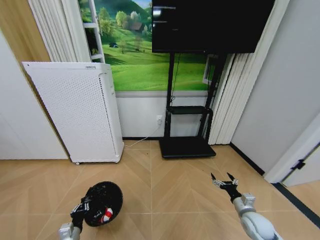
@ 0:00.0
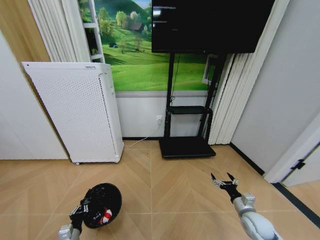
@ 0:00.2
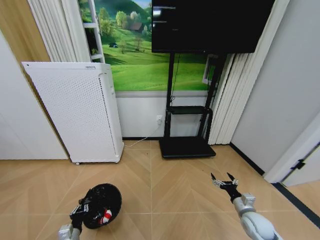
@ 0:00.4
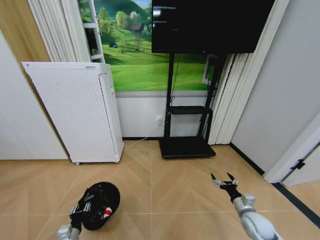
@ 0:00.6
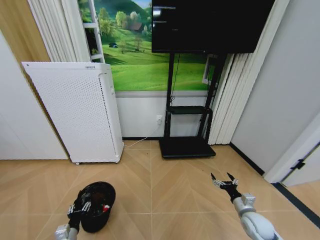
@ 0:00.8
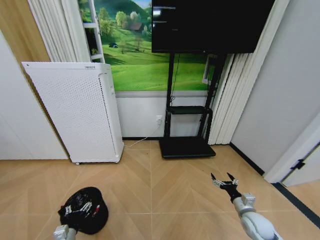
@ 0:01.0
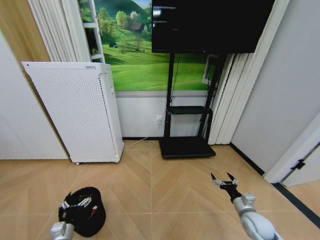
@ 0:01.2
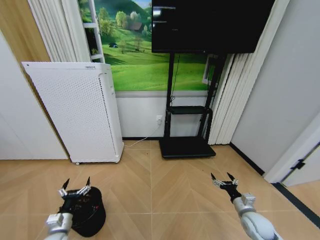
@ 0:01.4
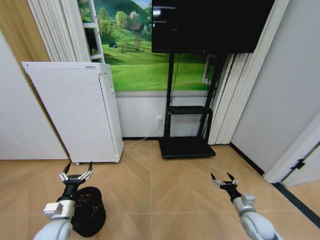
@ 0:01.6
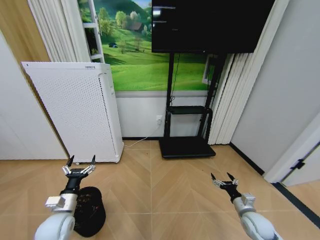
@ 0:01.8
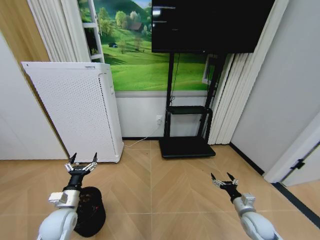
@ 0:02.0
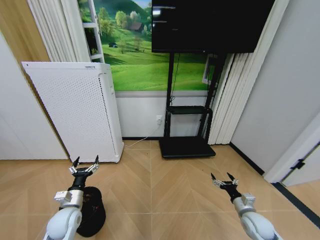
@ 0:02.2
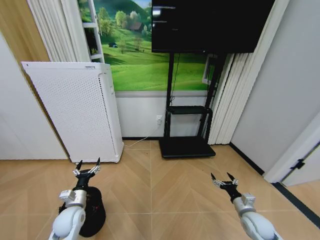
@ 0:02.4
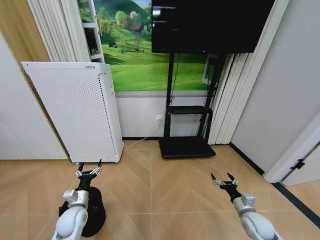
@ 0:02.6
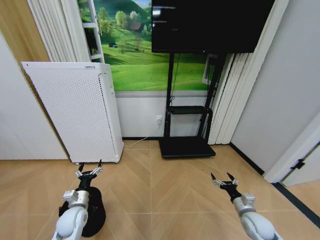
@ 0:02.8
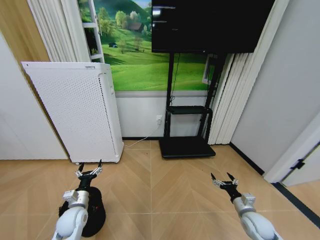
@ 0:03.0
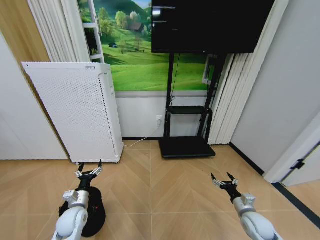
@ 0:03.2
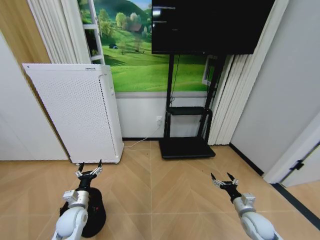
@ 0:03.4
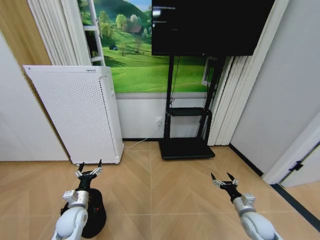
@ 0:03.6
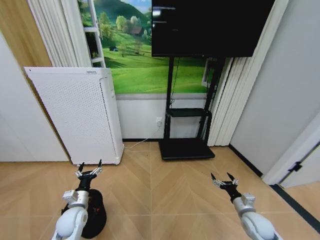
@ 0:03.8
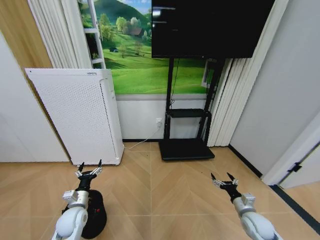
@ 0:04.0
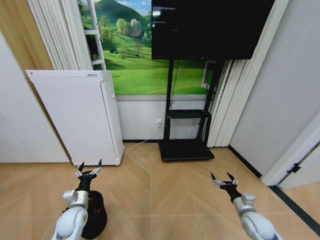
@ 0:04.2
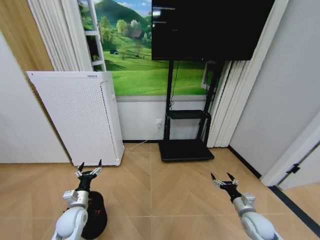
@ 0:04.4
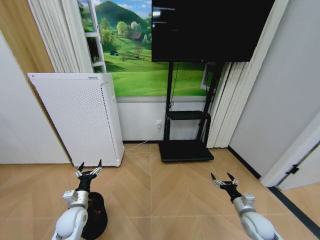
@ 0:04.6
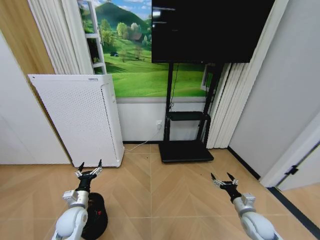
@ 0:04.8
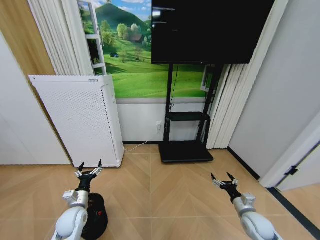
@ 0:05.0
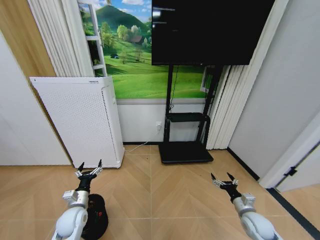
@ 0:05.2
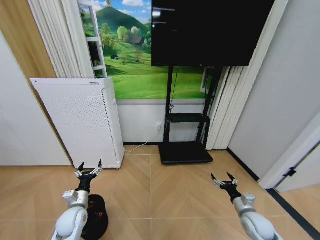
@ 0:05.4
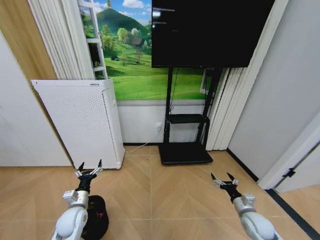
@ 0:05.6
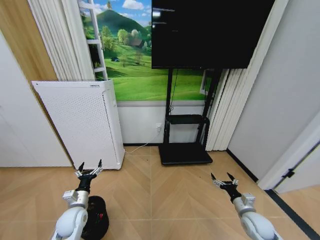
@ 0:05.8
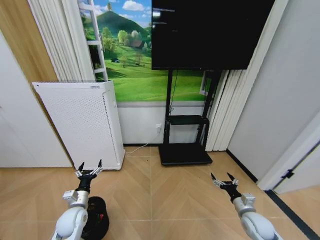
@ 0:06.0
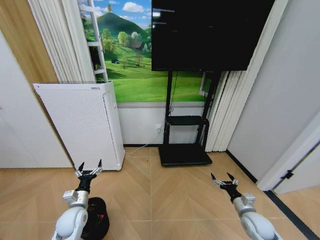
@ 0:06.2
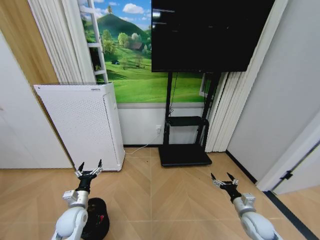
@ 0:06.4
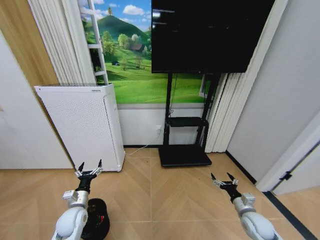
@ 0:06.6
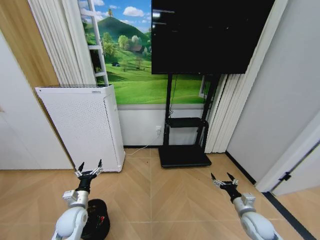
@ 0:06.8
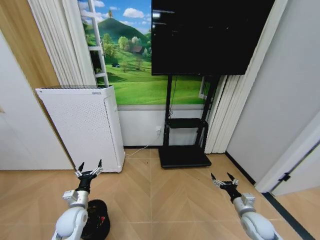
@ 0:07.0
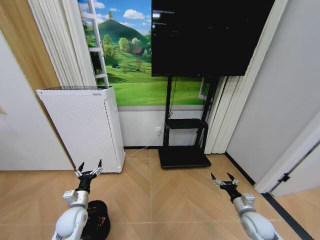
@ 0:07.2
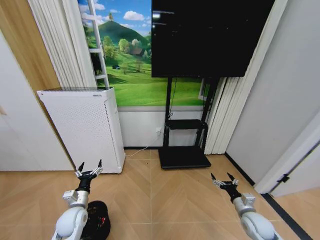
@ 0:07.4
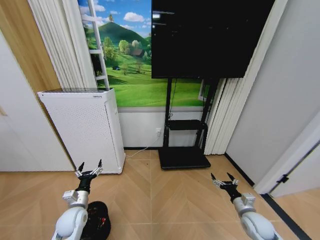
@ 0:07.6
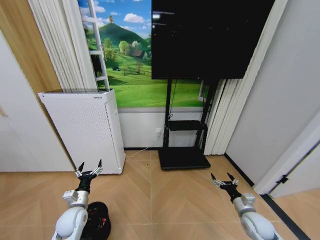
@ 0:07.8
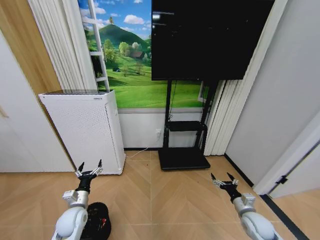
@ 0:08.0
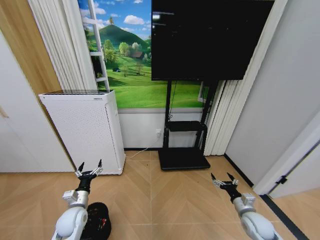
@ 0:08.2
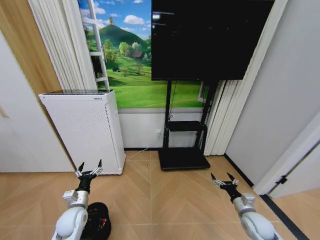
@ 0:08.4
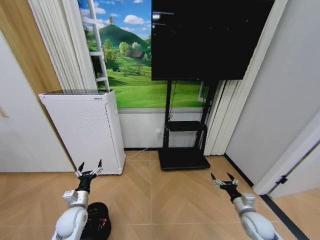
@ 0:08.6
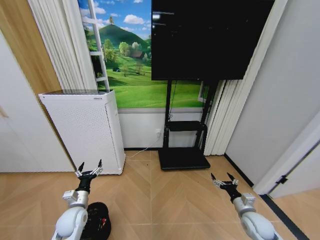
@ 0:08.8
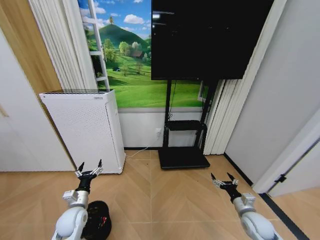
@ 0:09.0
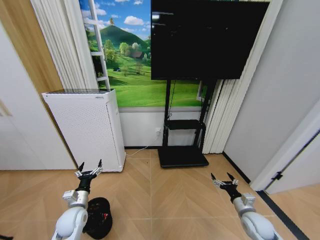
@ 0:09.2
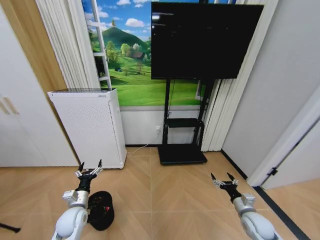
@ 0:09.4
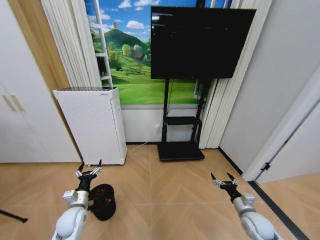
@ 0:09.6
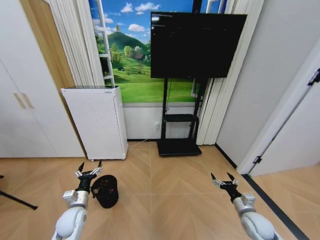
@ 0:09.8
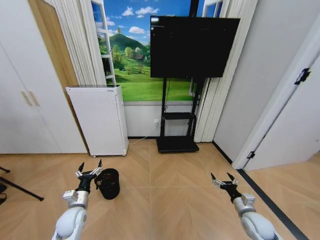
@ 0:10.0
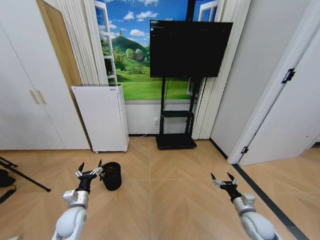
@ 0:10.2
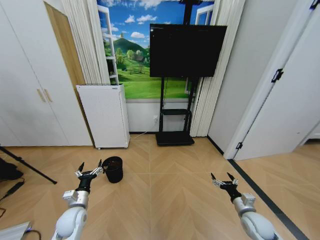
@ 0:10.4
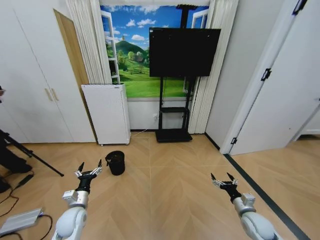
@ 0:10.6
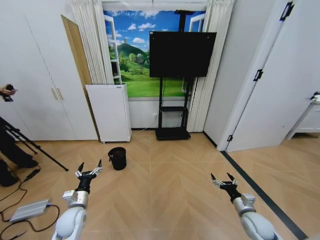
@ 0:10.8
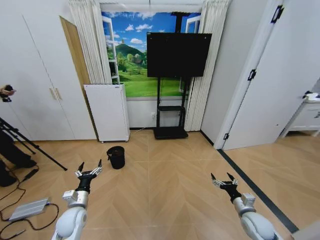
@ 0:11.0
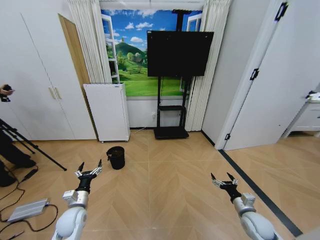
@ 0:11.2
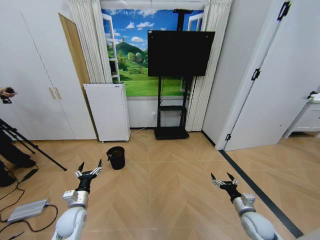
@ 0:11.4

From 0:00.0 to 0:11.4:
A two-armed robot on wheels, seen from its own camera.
Task of the whole recording: Pick up the trash bin and place the garbage on the floor into it.
From 0:00.0 to 0:01.4: The left gripper changes place by about 5 cm, and opens.
From 0:01.4 to 0:02.8: The left gripper is displaced forward by approximately 10 cm.
From 0:02.8 to 0:08.6: Neither gripper changes place.

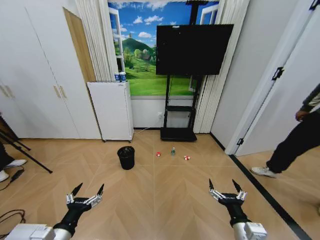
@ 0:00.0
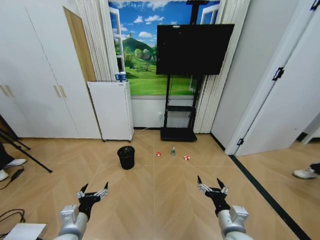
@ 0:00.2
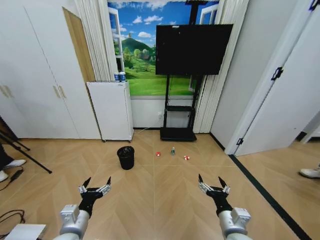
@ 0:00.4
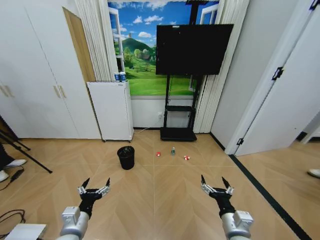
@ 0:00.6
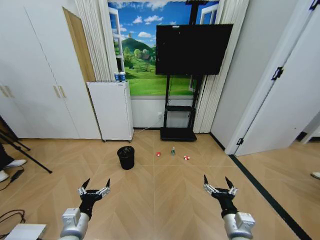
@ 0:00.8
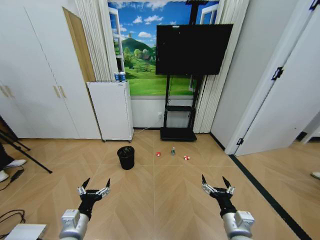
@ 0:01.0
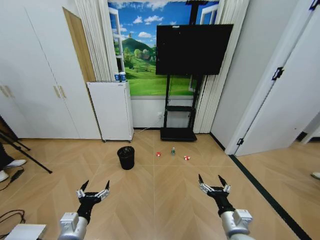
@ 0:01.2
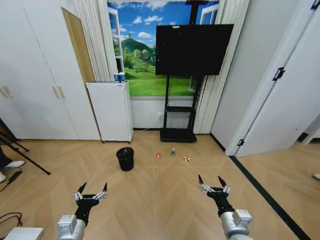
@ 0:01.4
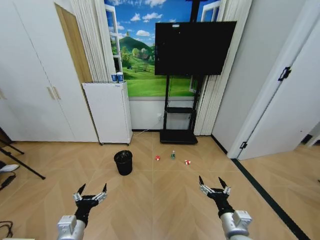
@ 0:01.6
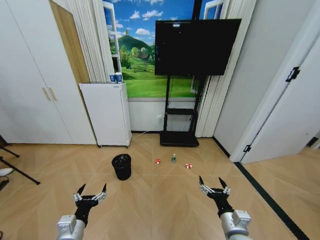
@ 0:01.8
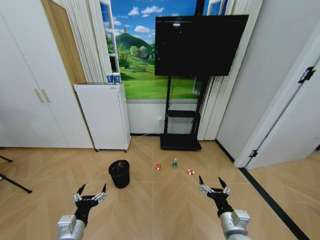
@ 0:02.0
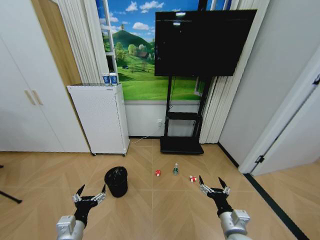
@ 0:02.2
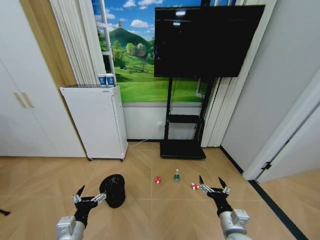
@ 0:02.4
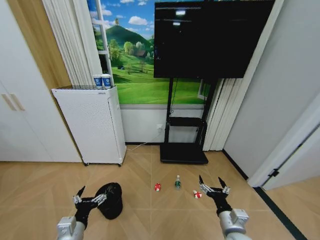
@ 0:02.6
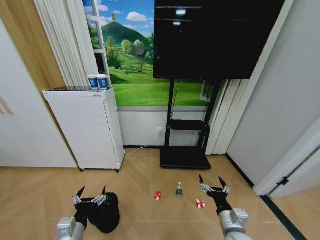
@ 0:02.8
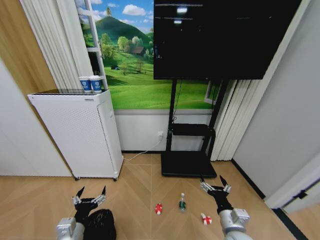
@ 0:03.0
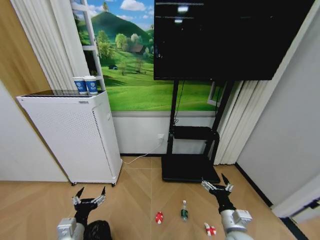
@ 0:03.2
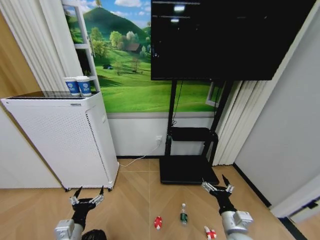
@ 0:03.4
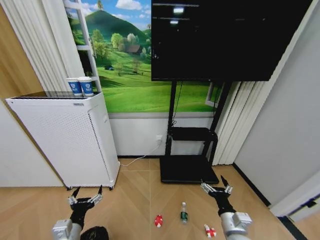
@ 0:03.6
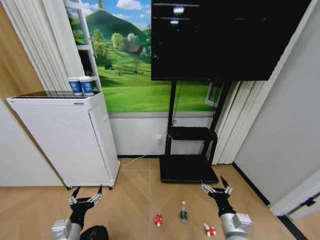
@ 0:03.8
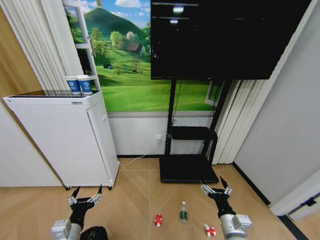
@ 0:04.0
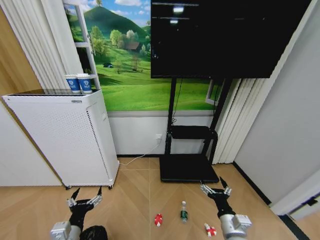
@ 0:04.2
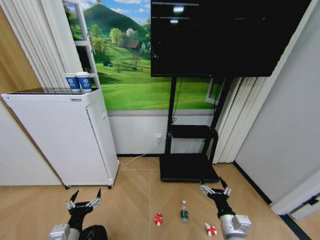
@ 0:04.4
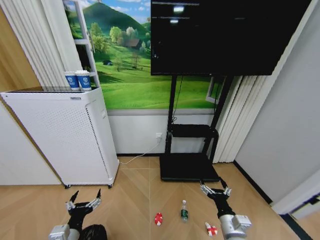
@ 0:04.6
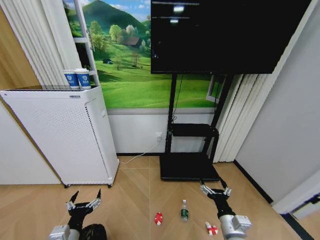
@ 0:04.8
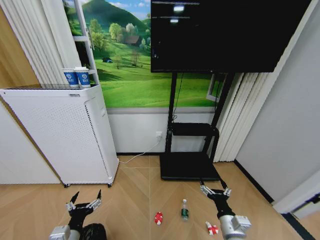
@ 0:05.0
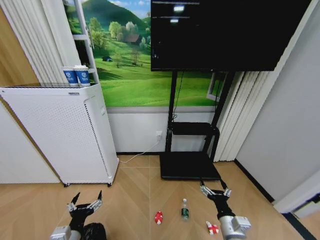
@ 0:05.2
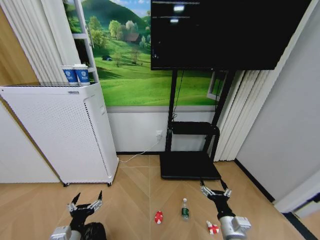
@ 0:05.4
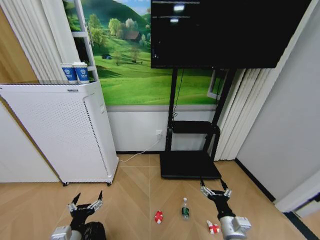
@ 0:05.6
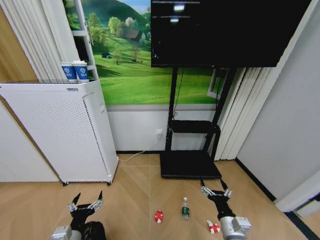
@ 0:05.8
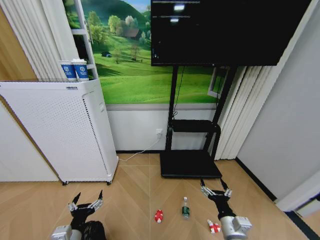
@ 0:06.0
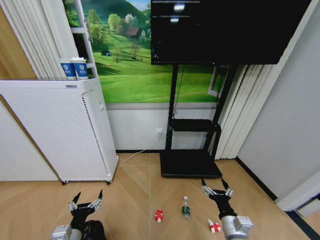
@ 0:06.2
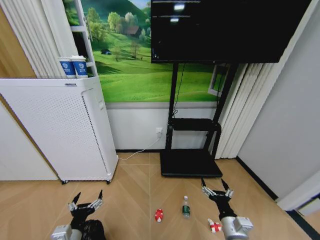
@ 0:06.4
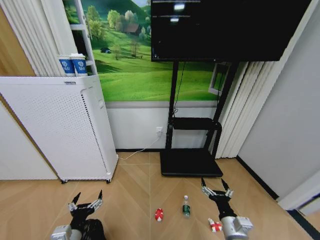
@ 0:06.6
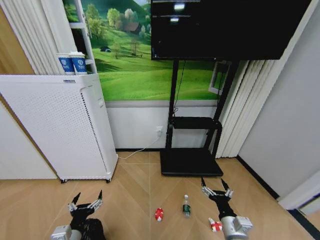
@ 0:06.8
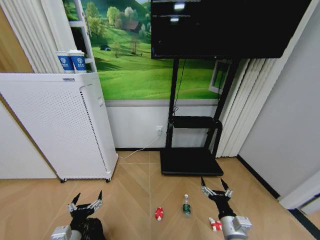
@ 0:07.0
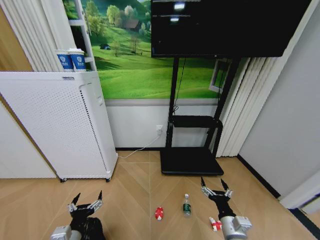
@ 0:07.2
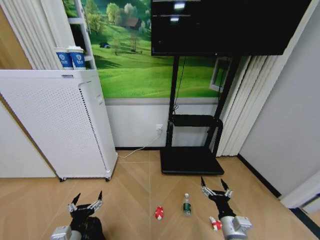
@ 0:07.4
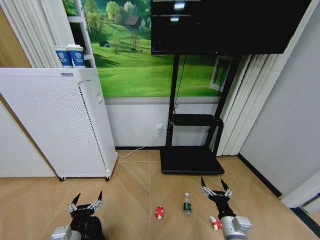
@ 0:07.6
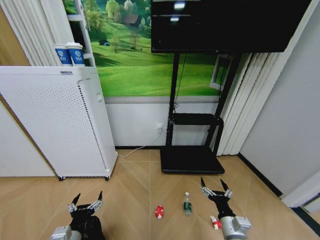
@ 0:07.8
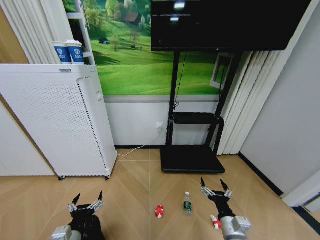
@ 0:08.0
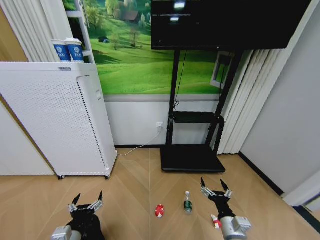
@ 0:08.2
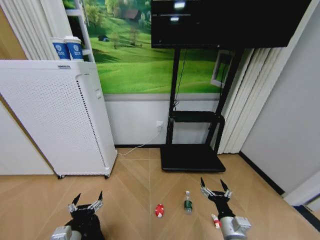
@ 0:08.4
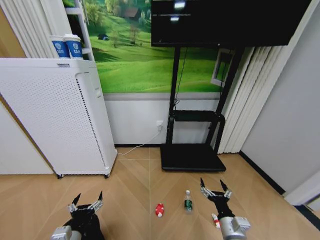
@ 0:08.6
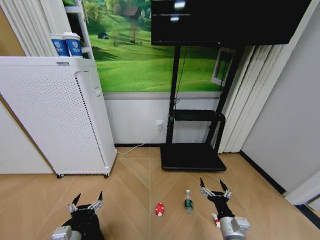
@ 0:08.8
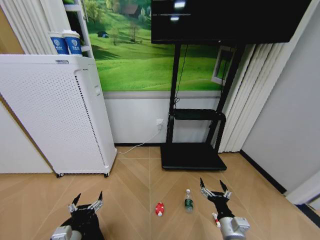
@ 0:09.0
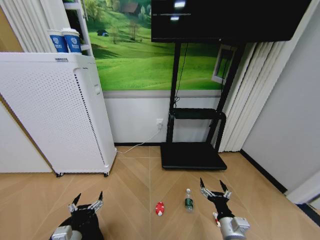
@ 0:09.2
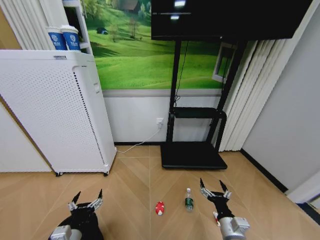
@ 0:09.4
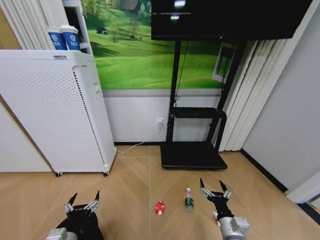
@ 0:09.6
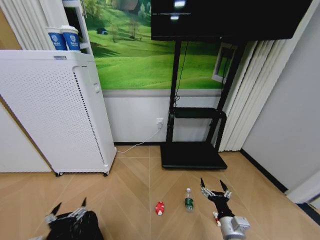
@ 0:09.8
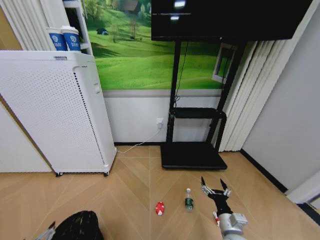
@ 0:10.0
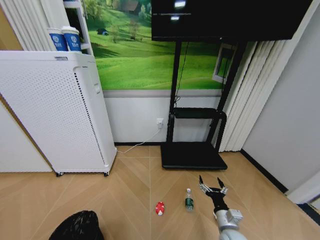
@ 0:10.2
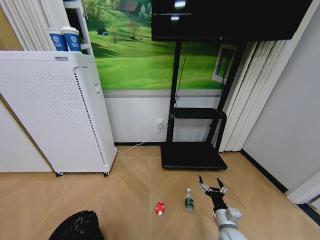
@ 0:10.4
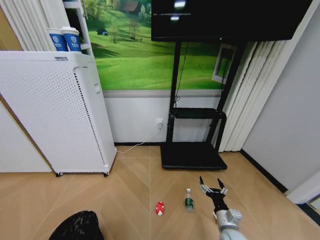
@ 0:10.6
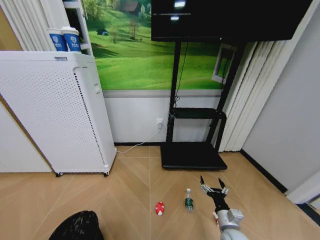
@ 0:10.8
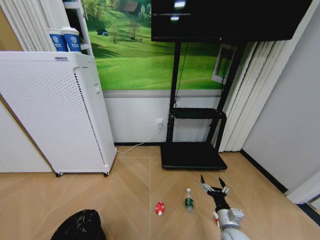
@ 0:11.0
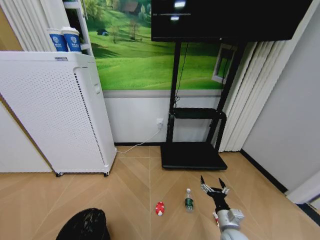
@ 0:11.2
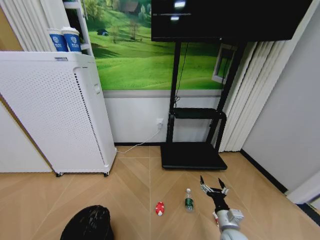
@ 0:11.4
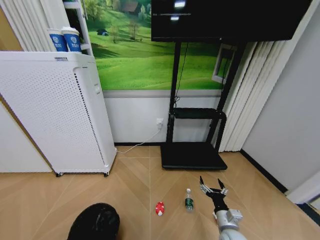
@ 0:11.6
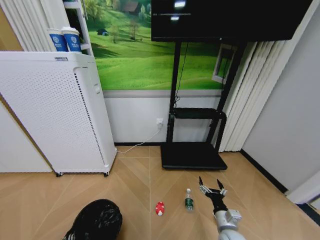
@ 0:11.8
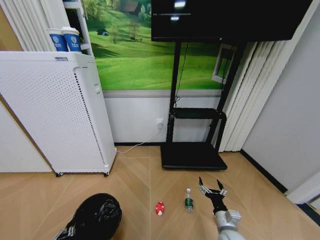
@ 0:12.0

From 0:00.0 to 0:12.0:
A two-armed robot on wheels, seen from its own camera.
Task of the whole recording: Pick up the trash bin and place the garbage on the floor into it.
From 0:04.4 to 0:09.0: Both grippers stay put.
From 0:09.0 to 0:10.4: The left gripper is displaced backward and to the left by some 15 cm, while the right gripper moves about 5 cm.
From 0:10.4 to 0:12.0: The left gripper heads downward and forward, covering about 10 cm, and closes.
